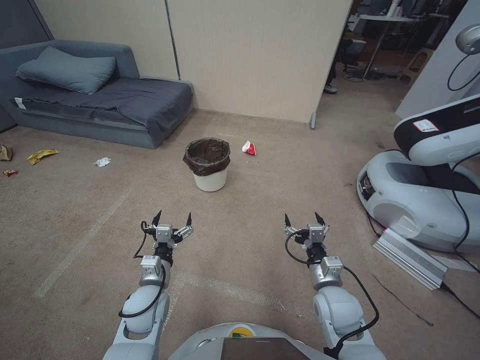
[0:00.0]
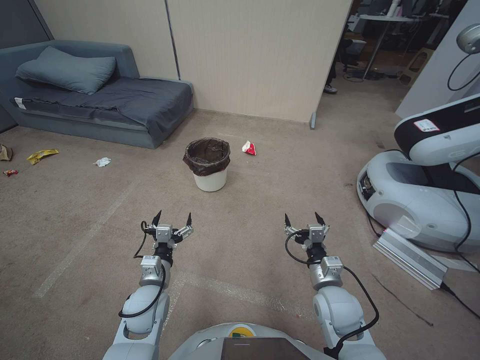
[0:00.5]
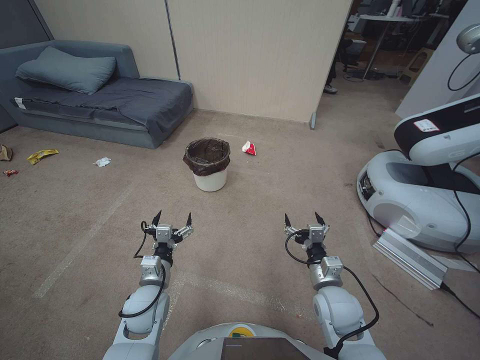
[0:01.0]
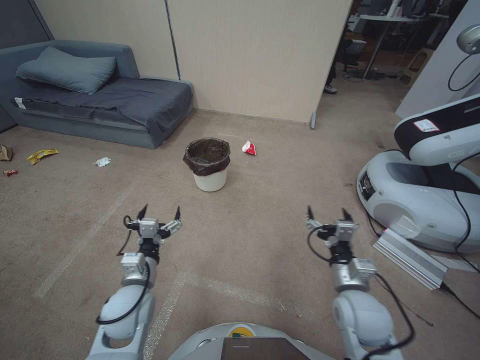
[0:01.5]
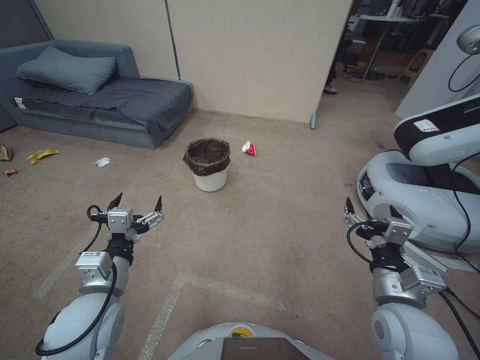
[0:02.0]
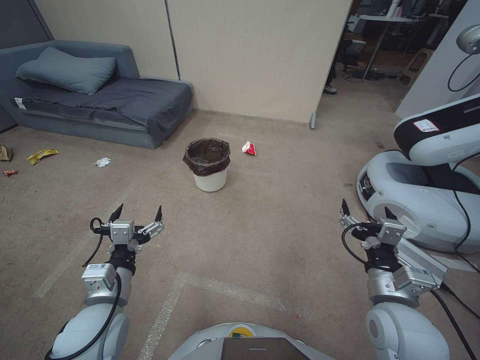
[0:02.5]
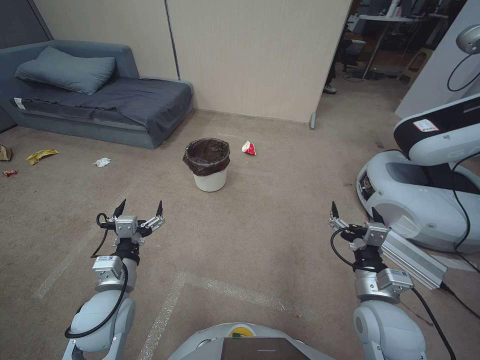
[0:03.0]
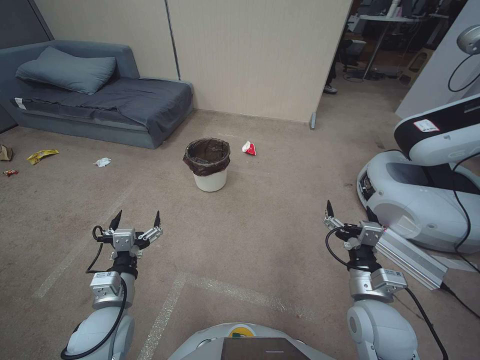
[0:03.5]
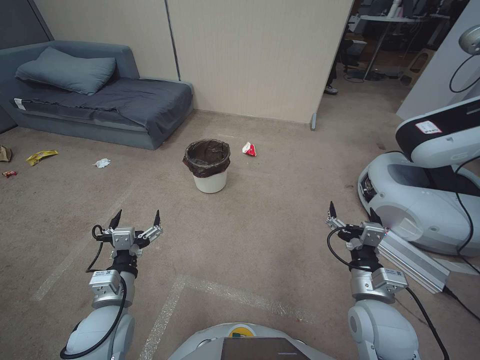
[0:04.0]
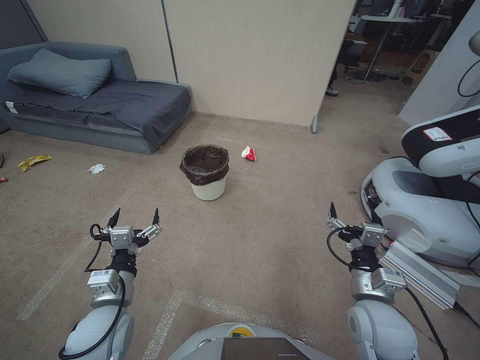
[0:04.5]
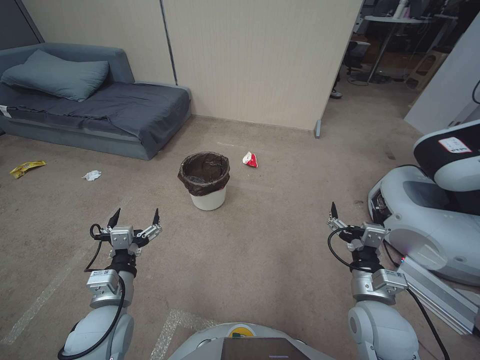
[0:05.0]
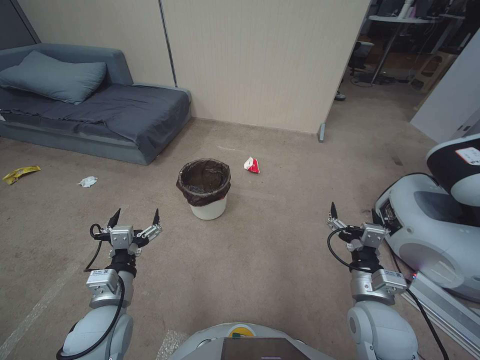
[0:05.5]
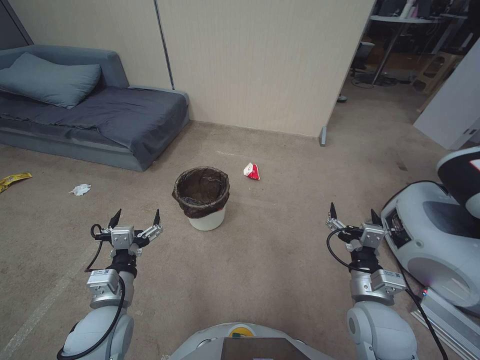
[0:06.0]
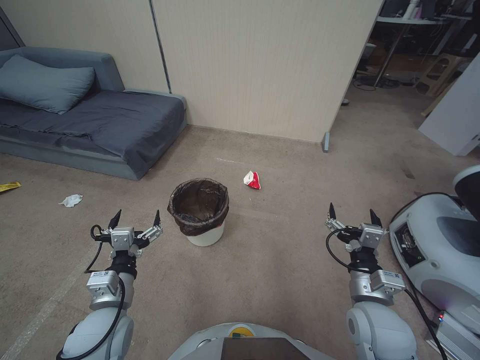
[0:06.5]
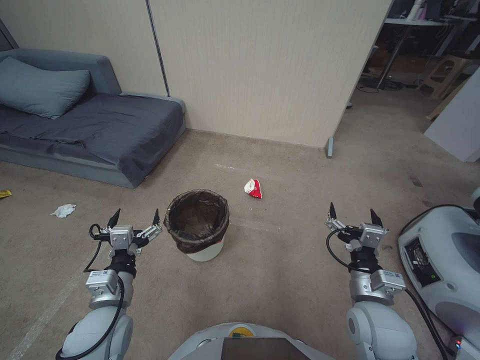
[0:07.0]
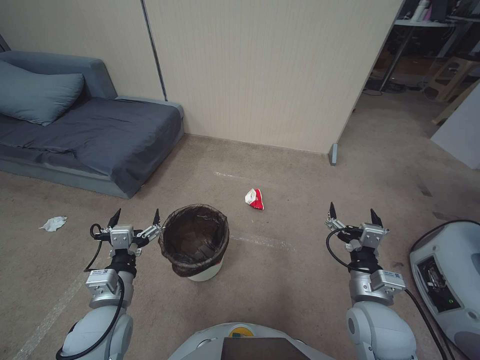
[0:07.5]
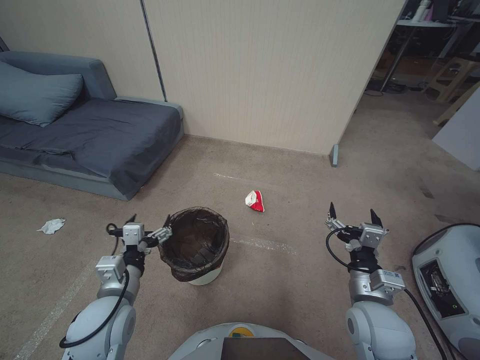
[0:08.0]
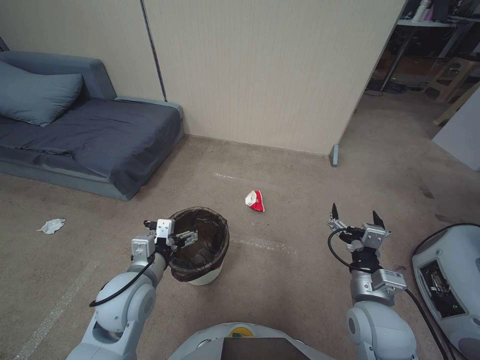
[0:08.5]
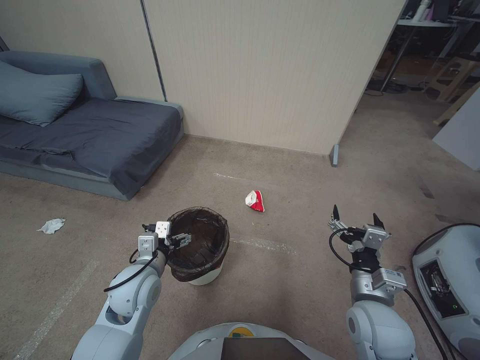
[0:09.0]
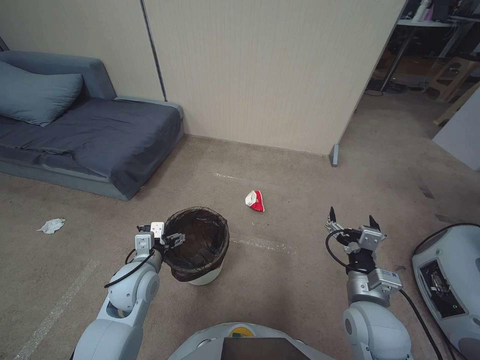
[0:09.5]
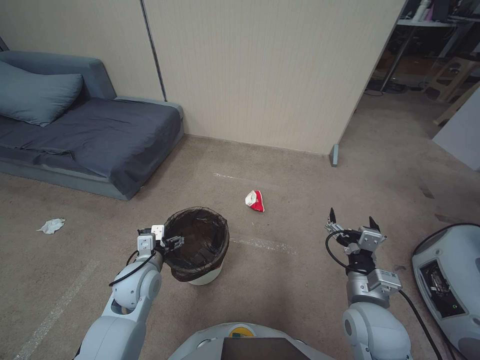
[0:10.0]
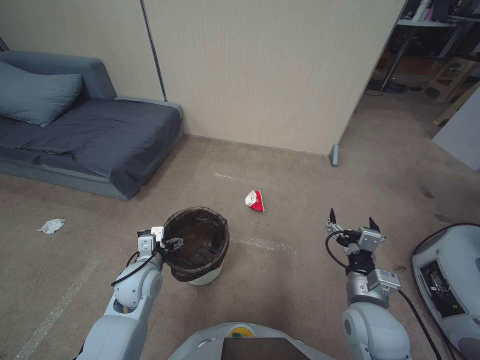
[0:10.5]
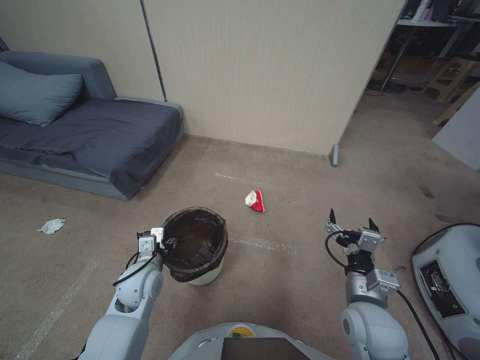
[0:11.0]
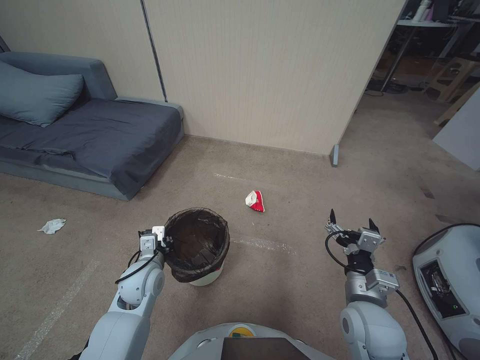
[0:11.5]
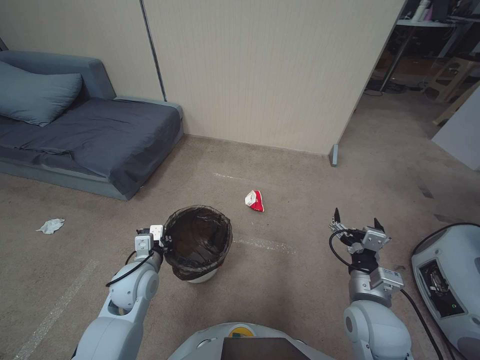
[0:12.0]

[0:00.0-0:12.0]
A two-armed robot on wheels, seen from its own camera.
Task of the whole recording: Pick up the trash bin, then pick up the garbage from the floor and place it into the trash bin.
0:02.0 to 0:04.0: The right gripper shifts by approximately 5 cm. Meanwhile the left gripper is displaced downward by some 5 cm.
0:08.0 to 0:10.0: The left gripper is displaced forward and downward by some 10 cm.
0:10.0 to 0:12.0: The left gripper closes up.

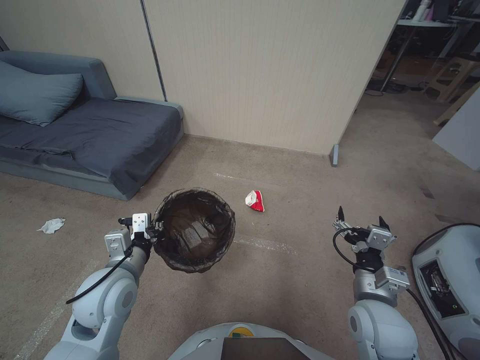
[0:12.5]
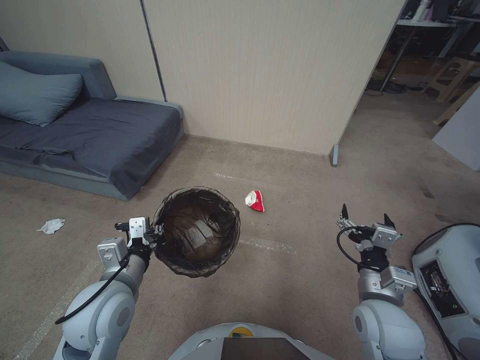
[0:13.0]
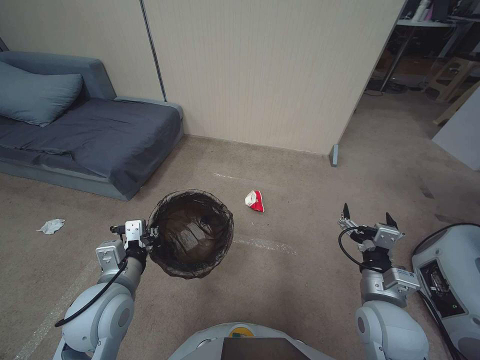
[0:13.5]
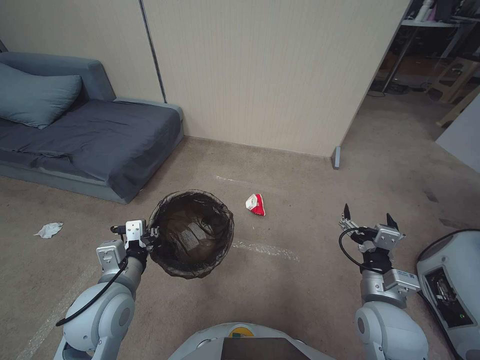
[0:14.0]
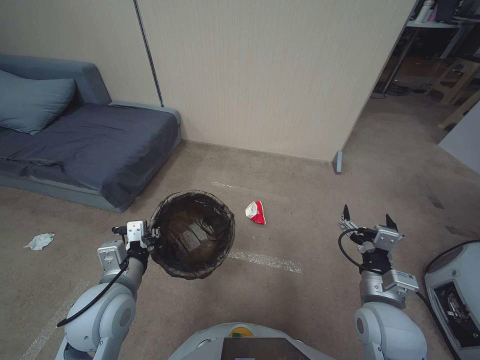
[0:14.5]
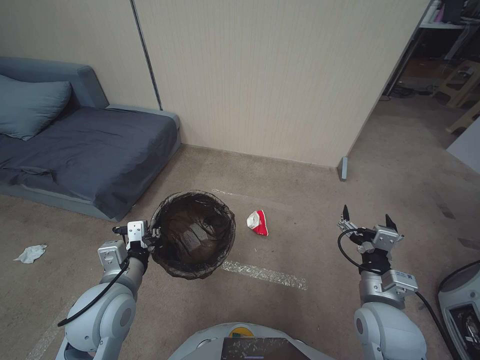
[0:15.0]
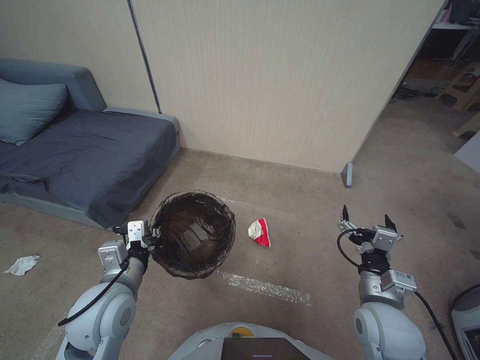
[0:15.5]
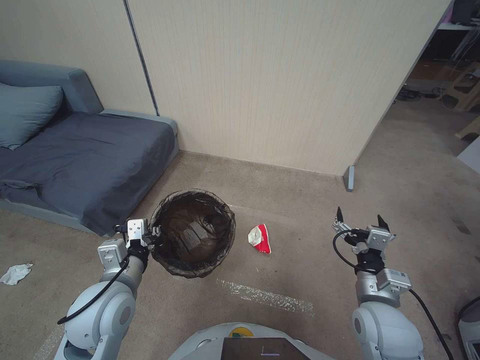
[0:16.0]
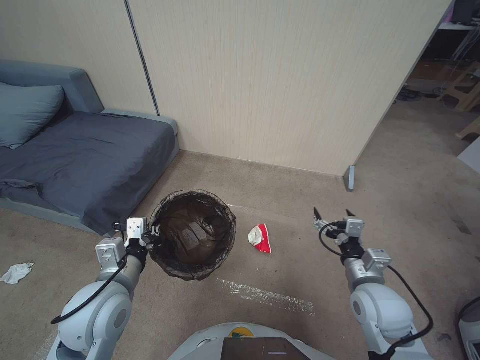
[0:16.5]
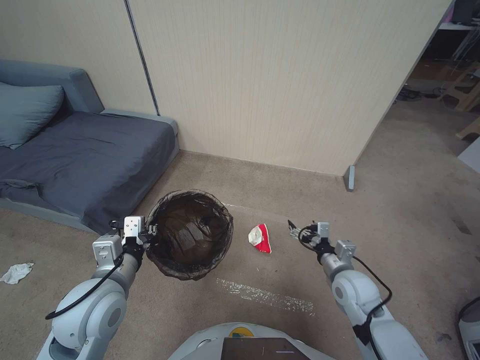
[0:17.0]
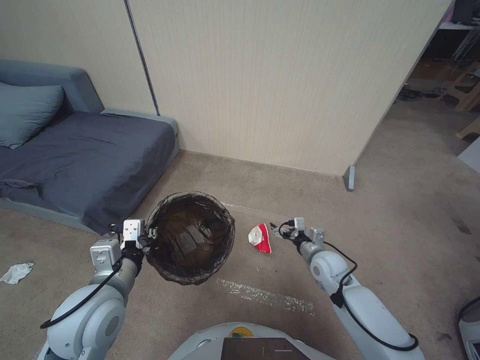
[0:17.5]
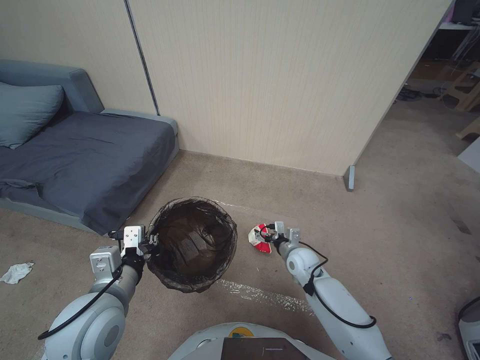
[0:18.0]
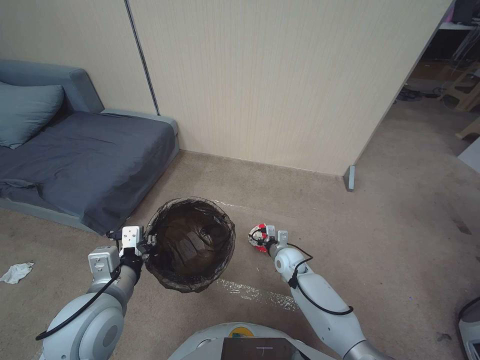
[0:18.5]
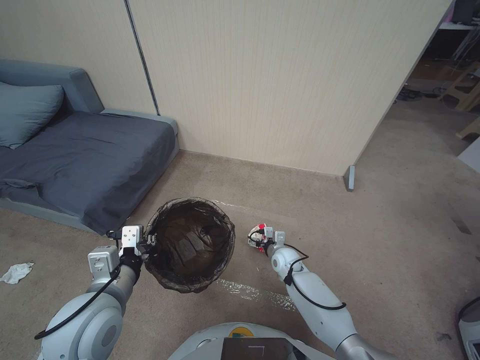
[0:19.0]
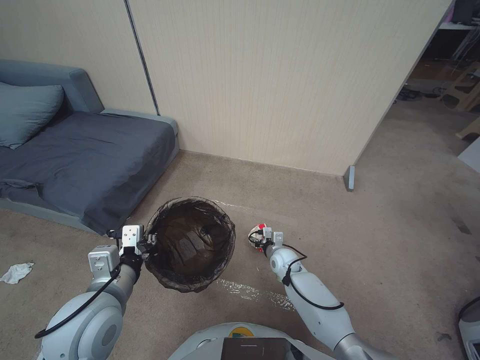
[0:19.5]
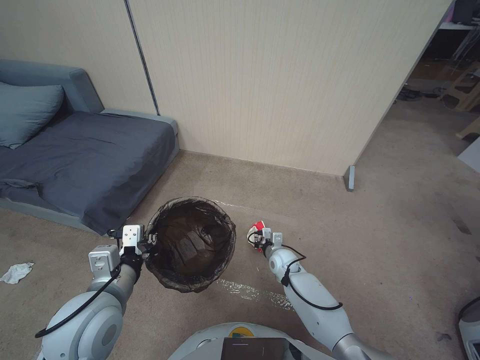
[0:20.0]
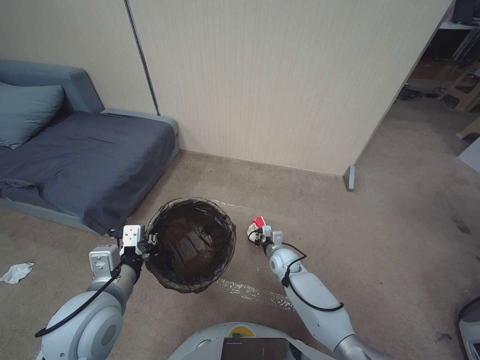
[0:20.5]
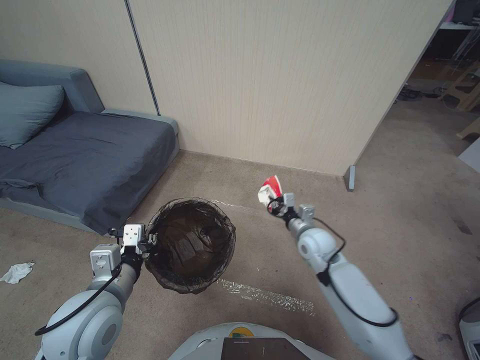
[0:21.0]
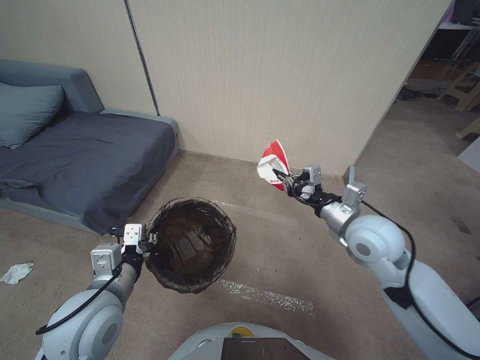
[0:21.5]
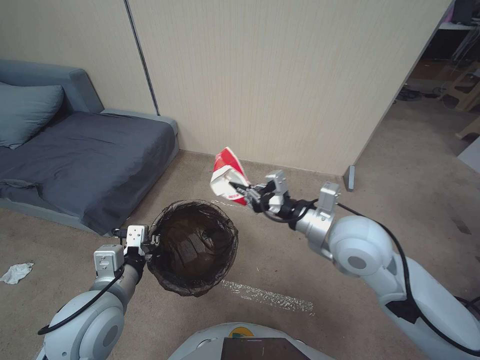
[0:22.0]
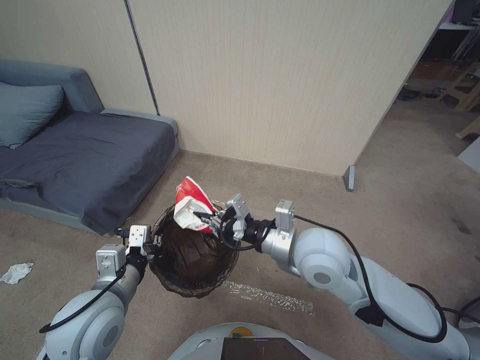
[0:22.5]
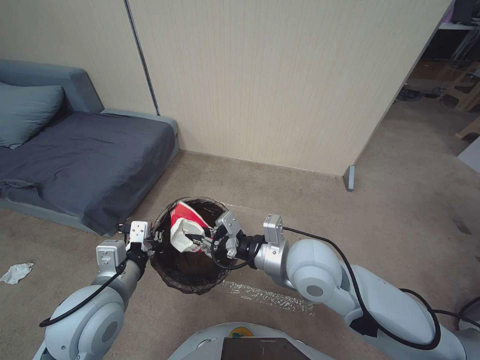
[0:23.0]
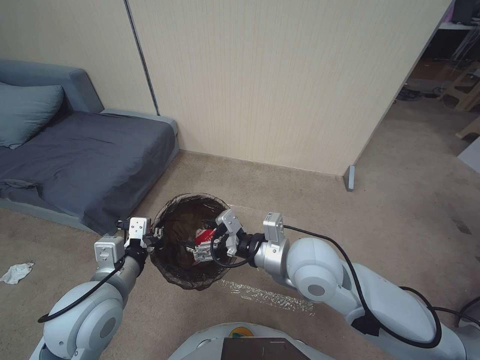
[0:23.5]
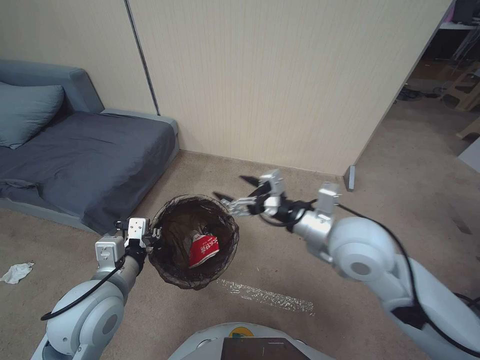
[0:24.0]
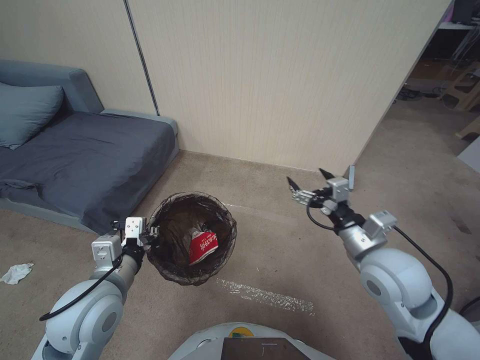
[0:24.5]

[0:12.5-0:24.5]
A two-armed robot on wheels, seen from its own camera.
Task of the whole recording: Pick up the trash bin, then pick up the garbage from the floor and place it into the trash bin.
0:12.5 to 0:14.5: The grippers stay close to where they were, moving slightly.
0:16.5 to 0:18.5: The right gripper is displaced downward, forward and to the left by some 25 cm.
0:18.5 to 0:20.5: The right gripper closes its fingers.
0:20.5 to 0:22.5: The right gripper shifts some 35 cm upward.
0:22.5 to 0:24.5: The right gripper moves to the right, approximately 10 cm, and opens up.

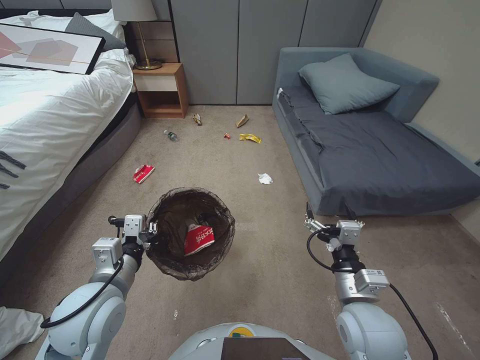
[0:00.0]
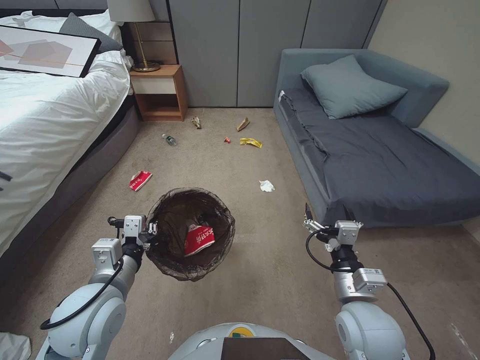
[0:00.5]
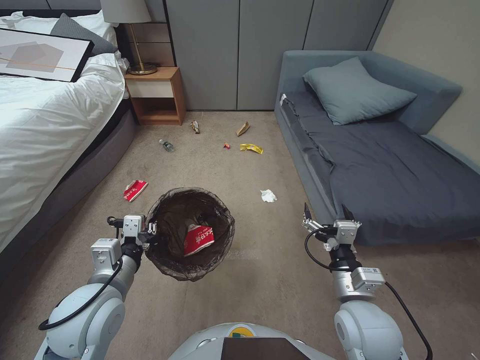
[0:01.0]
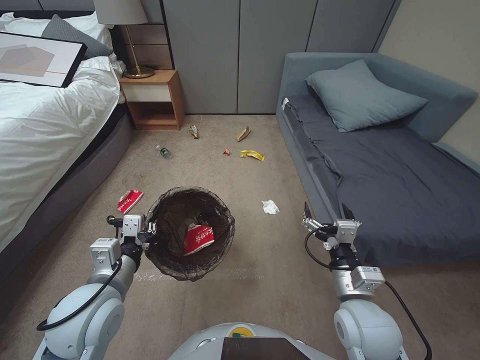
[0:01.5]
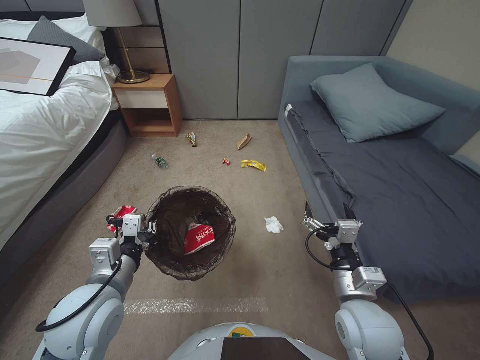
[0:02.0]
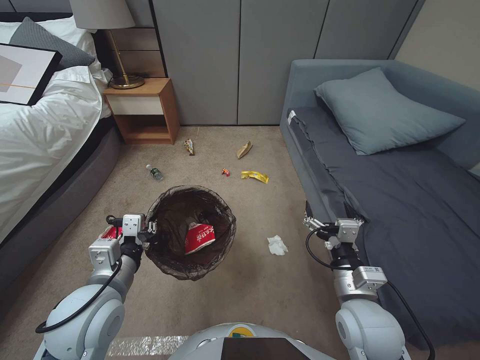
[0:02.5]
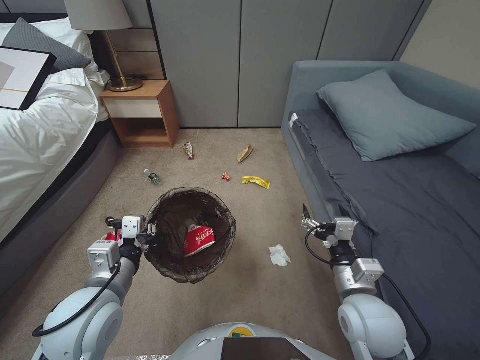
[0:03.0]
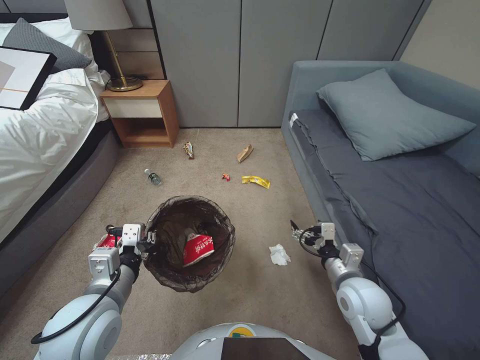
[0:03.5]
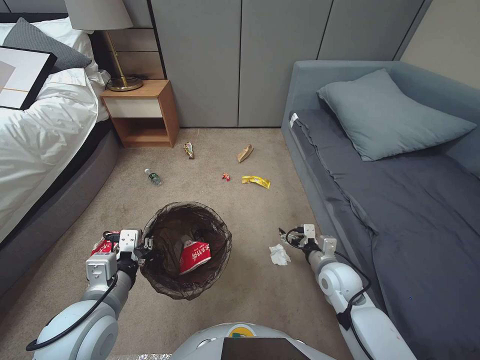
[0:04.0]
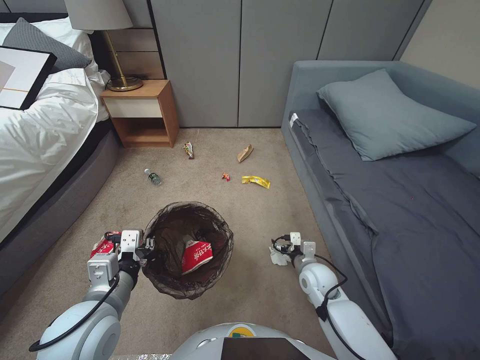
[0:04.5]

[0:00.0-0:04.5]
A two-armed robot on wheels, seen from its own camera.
Task of the whole recording: Pick up the trash bin, then pick up the garbage from the floor and place it into the trash bin.
0:02.0 to 0:04.5: The right gripper heads downward and forward, covering some 20 cm.
